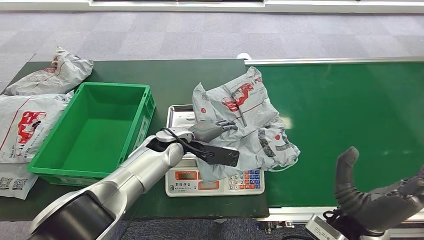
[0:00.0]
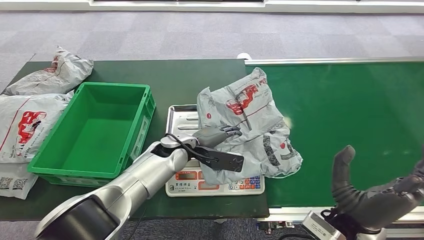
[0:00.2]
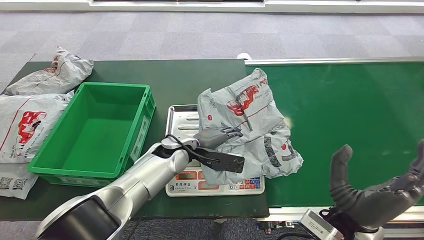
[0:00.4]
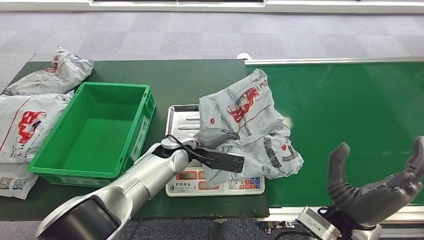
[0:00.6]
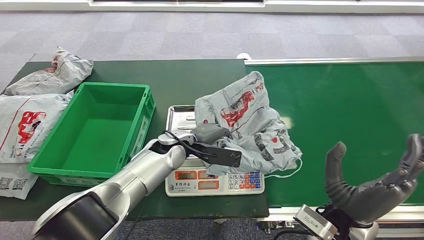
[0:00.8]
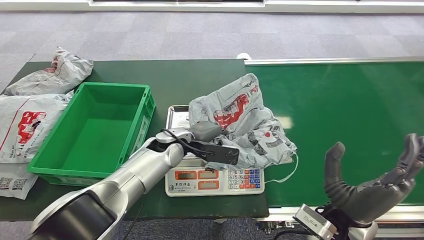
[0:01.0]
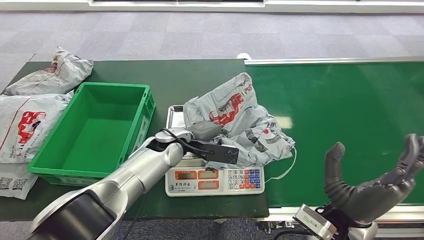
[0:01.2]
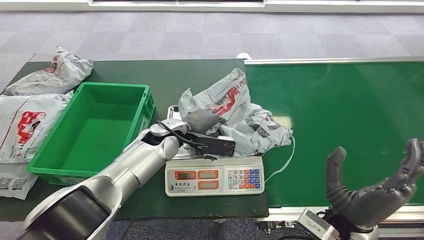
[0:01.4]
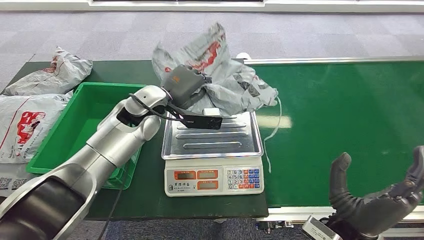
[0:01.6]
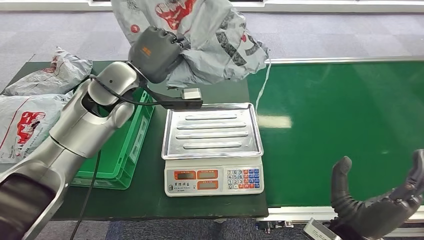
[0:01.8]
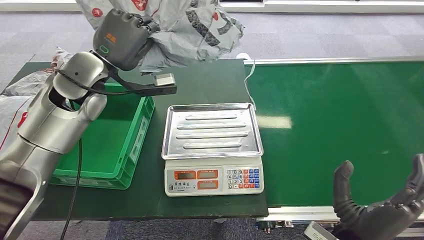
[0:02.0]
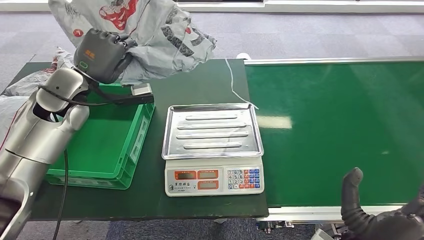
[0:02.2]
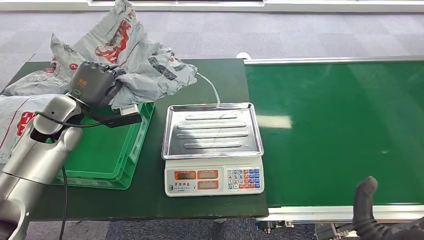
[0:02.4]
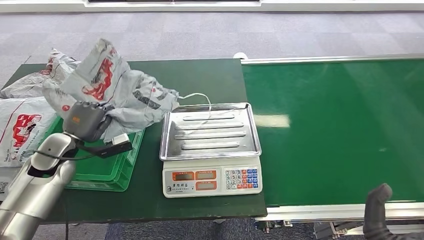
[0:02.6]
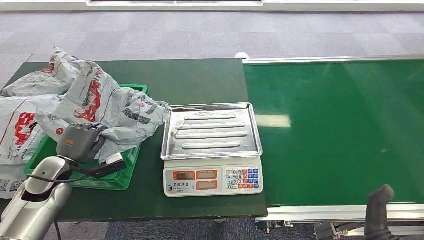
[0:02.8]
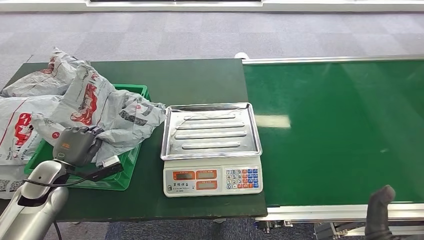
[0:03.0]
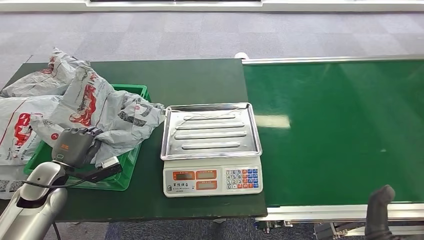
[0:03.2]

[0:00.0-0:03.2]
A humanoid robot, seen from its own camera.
Step, 0:00.0 to 0:02.0: Pick up the package from the inbound machine.
Step, 0:02.2 to 0:03.2: Place the package into the parcel locker.

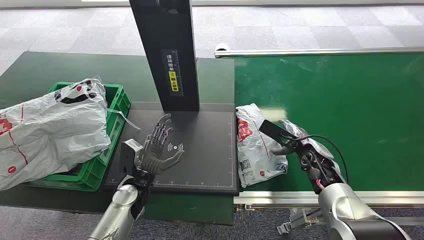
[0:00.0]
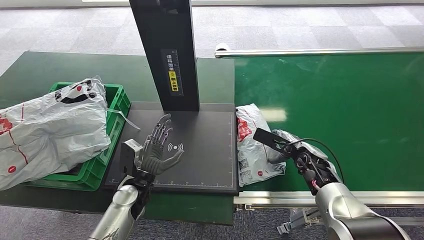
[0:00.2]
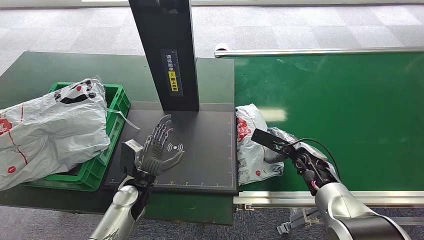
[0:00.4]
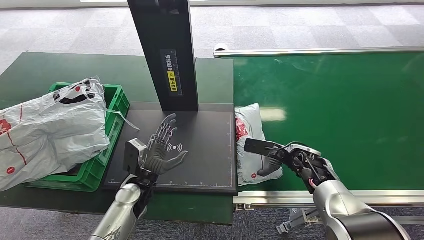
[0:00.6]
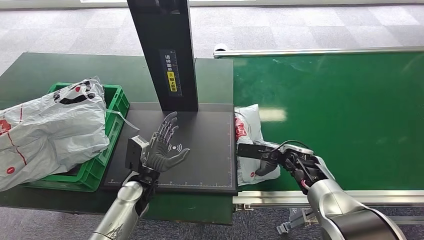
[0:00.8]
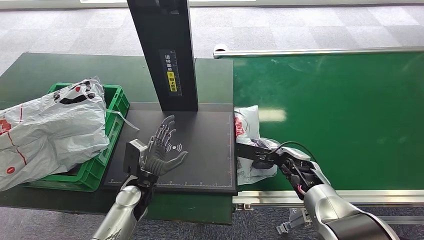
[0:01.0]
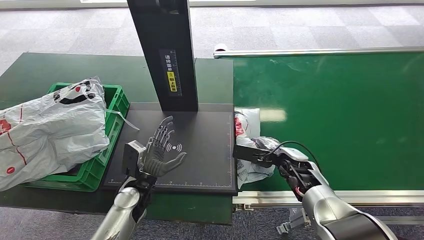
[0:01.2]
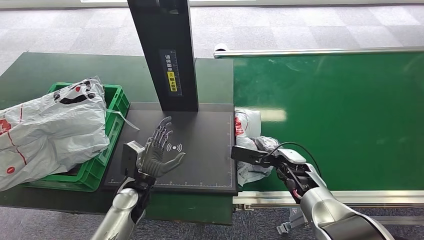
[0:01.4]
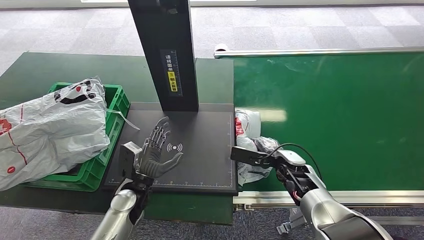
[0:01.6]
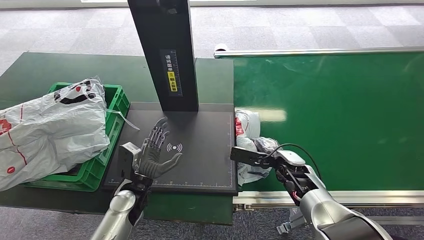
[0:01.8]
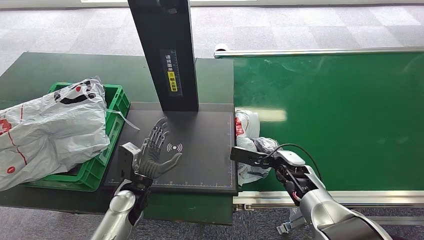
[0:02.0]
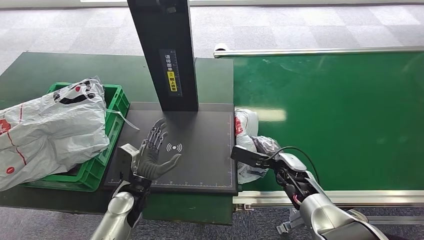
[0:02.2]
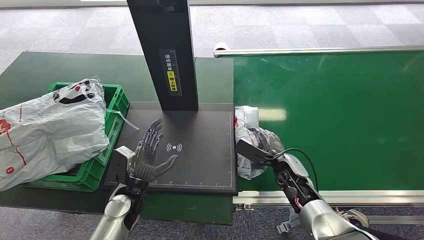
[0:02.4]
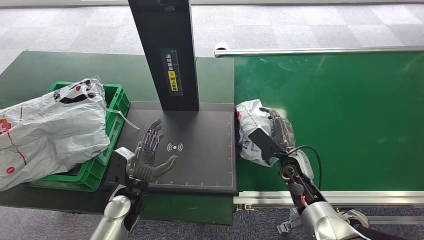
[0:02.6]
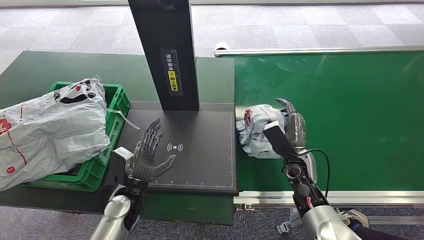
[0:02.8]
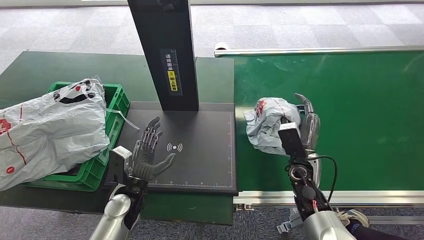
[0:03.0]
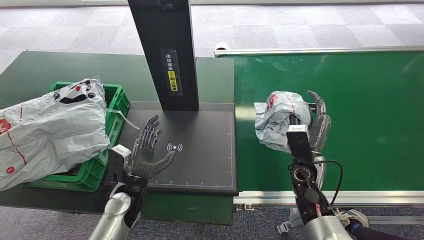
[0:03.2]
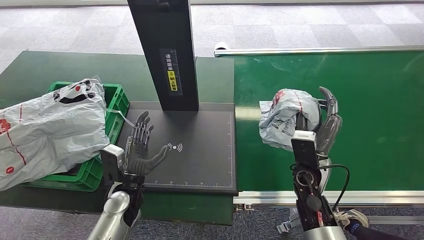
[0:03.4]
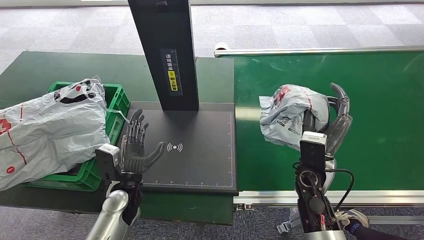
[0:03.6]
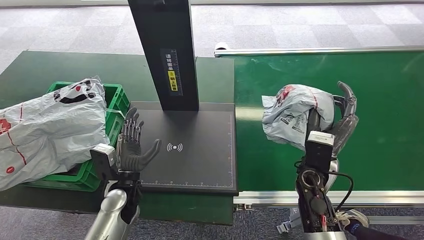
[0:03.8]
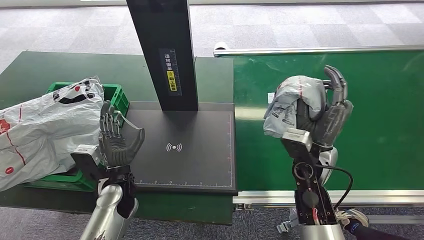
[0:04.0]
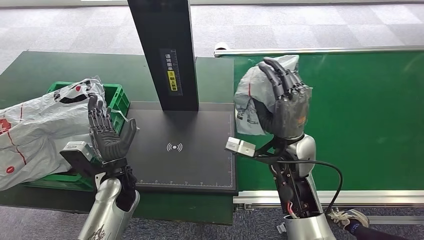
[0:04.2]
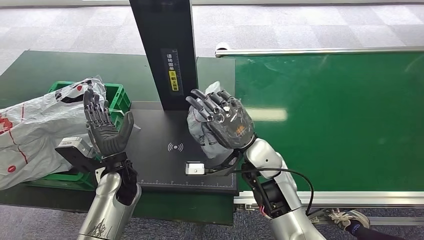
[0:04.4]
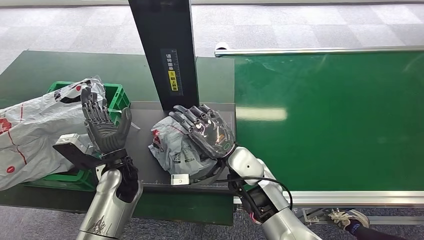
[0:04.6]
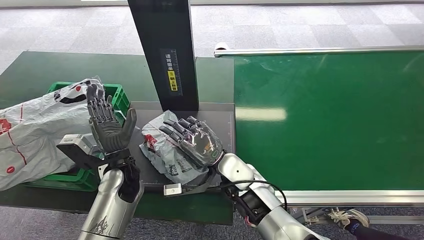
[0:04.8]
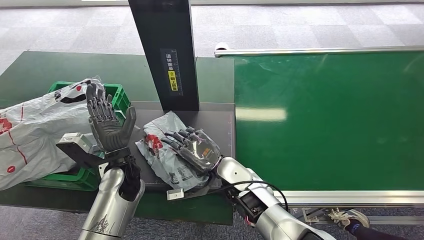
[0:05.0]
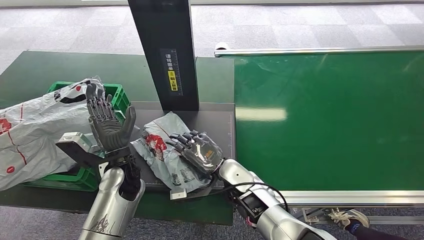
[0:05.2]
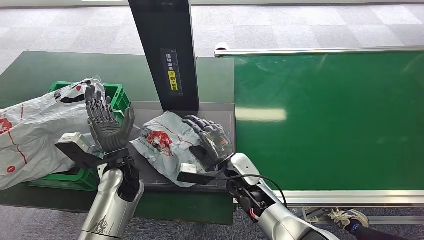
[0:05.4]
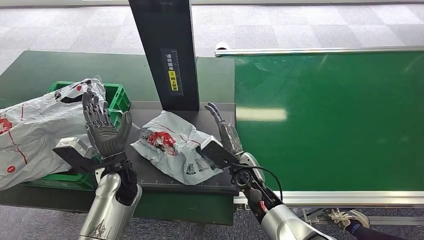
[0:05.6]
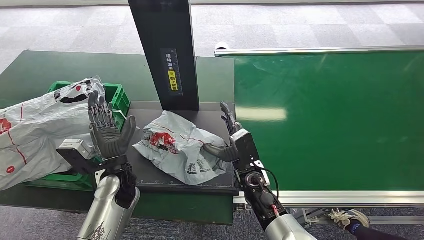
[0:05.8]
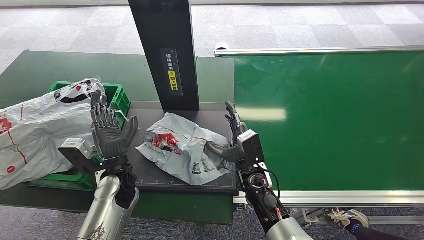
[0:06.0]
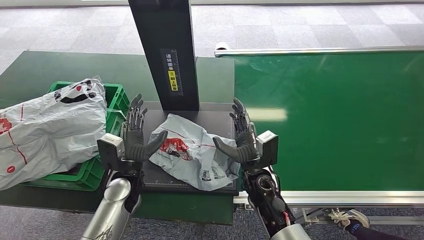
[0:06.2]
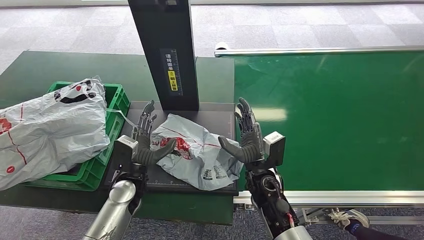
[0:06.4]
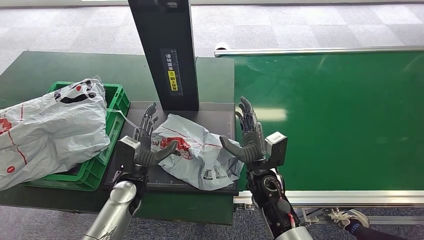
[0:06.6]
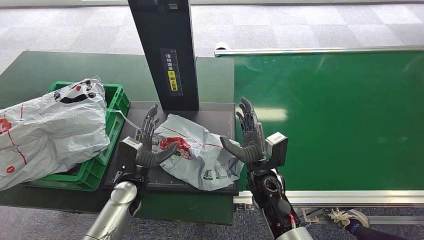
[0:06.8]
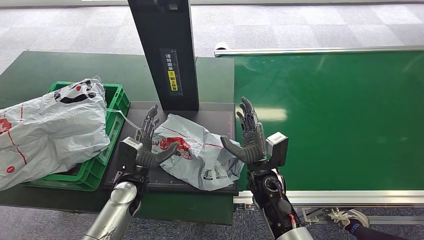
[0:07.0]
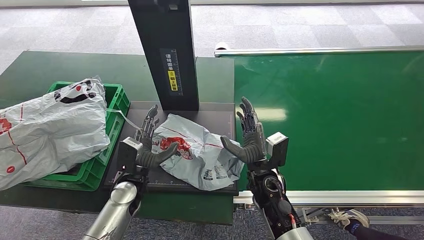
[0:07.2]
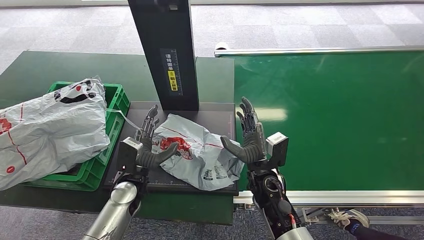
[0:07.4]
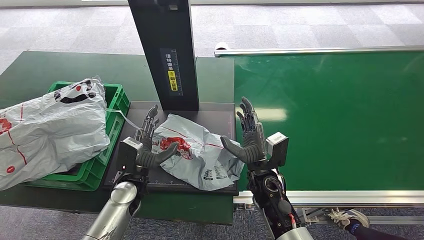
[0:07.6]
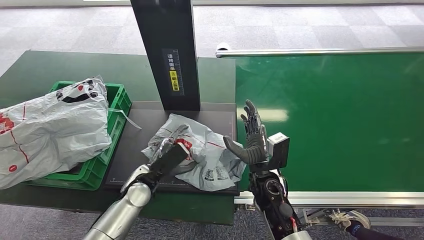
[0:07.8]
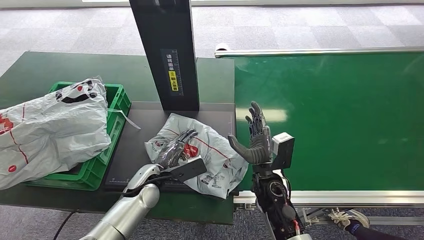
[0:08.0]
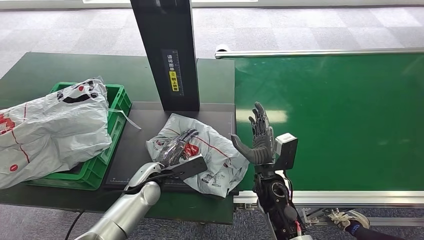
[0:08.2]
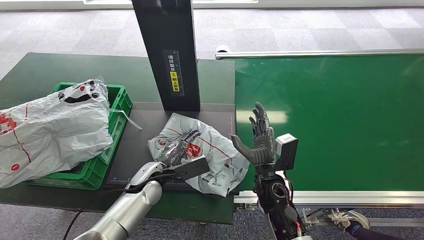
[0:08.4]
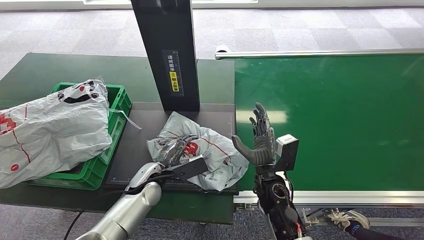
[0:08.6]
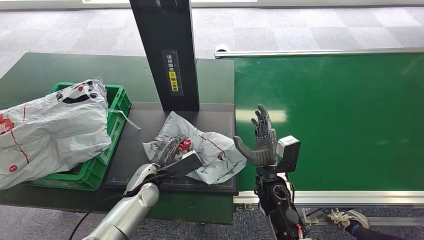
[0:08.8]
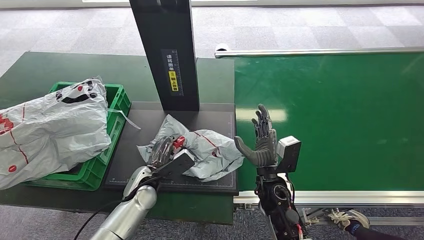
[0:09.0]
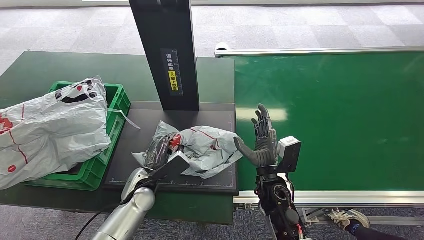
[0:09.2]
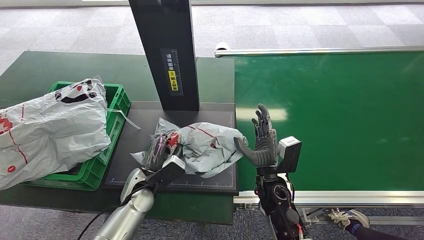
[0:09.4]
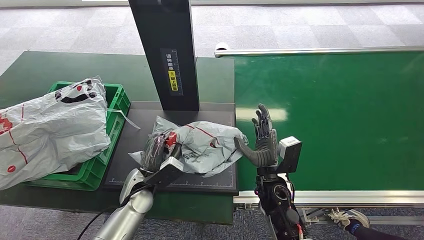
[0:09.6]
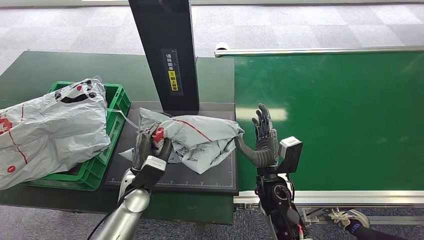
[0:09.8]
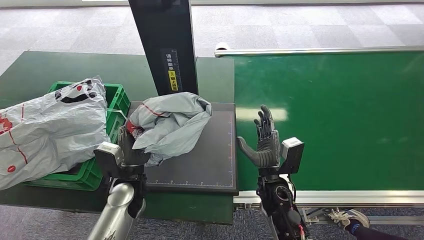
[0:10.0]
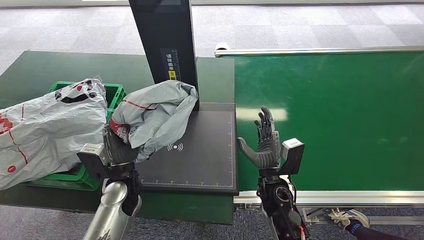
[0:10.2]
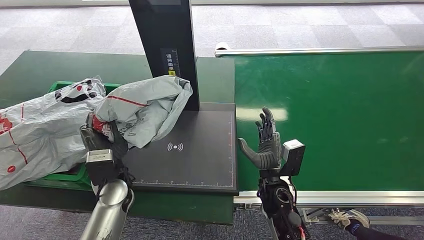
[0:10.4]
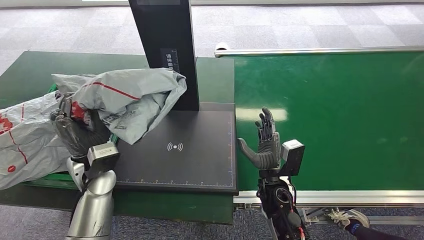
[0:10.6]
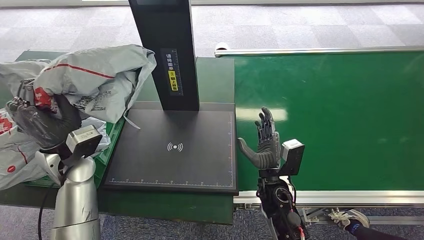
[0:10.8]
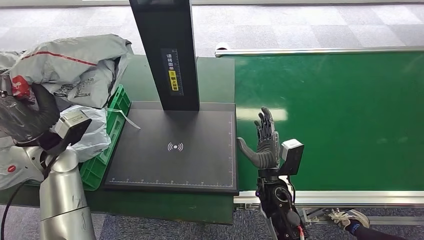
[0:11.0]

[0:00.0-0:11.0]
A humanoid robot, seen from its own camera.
Step, 0:00.0 to 0:03.0: Pick up the package from the conveyor belt.
Step, 0:03.2 to 0:06.6: Place the package onto the inbound machine.
Step, 0:07.0 to 0:10.6: Pick up the package from the inbound machine.
0:03.2 to 0:04.8: The right hand goes approximately 20 cm to the left, while the left hand moves upward, some 5 cm.
0:04.8 to 0:06.2: The right hand moves to the right, some 5 cm.

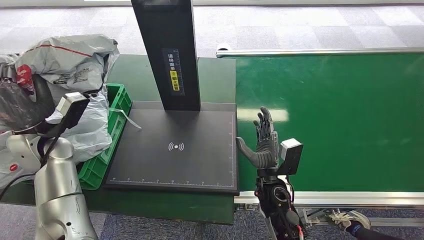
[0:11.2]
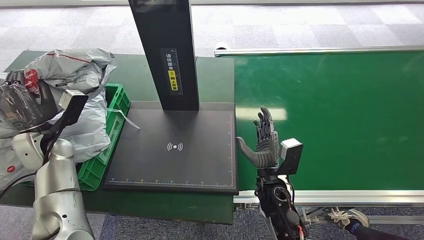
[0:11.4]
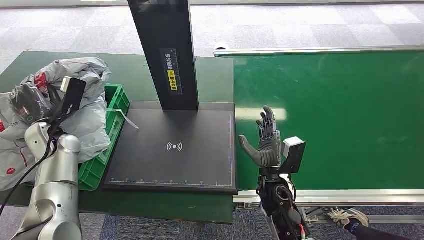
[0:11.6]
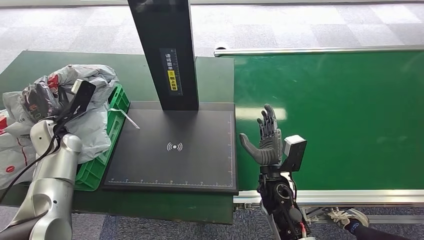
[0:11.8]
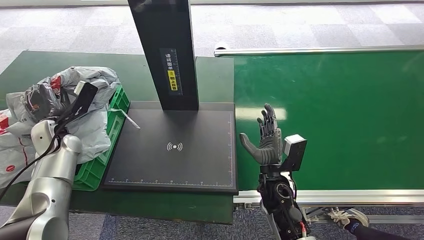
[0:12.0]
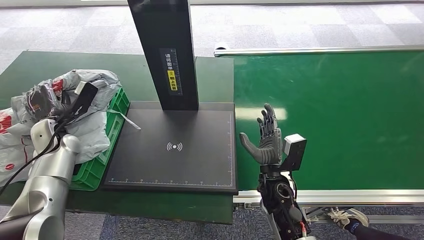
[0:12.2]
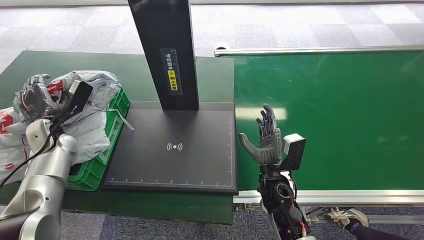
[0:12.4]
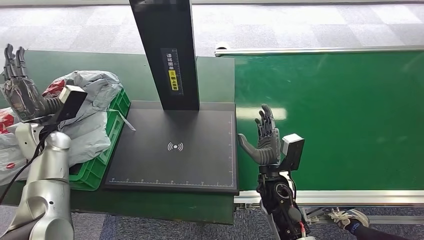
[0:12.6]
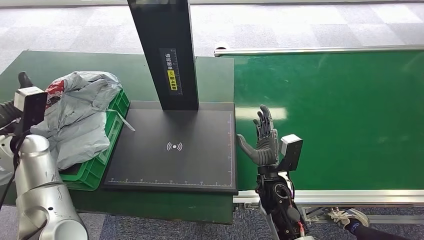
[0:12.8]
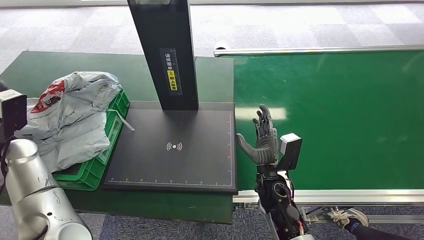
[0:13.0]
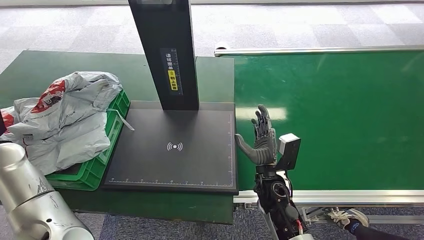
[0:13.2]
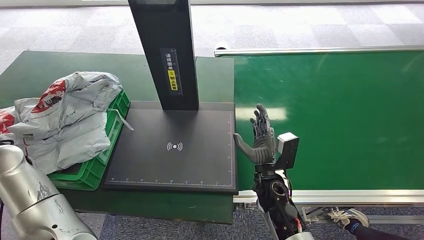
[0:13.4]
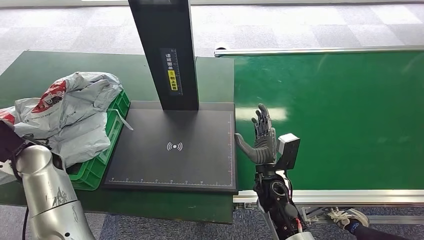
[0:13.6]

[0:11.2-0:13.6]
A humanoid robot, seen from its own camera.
Step, 0:11.2 to 0:13.6: Place the package into the parcel locker.
0:12.4 to 0:13.6: The left hand shifts roughly 10 cm backward and upward.
